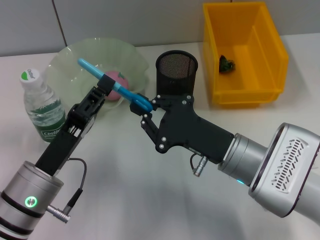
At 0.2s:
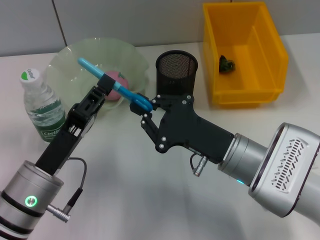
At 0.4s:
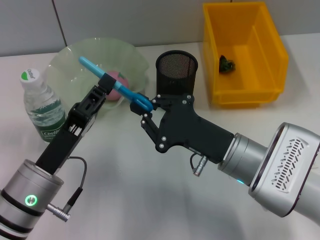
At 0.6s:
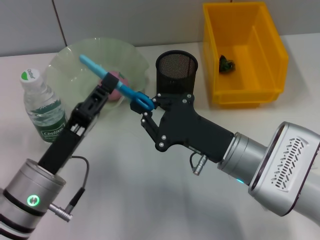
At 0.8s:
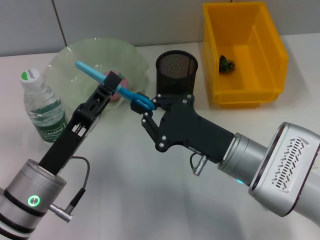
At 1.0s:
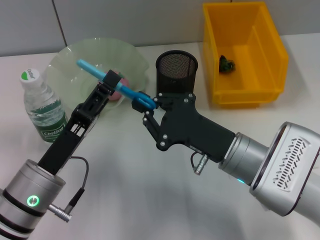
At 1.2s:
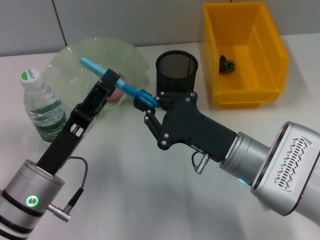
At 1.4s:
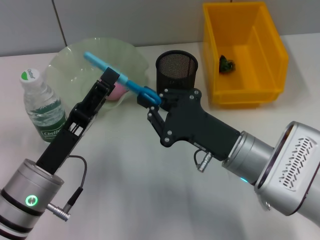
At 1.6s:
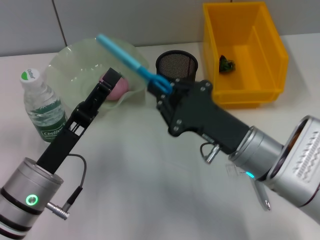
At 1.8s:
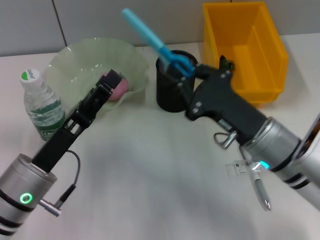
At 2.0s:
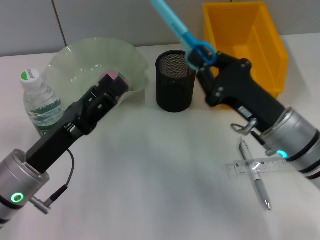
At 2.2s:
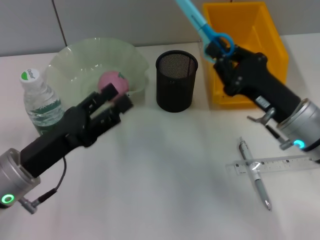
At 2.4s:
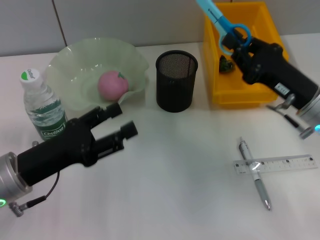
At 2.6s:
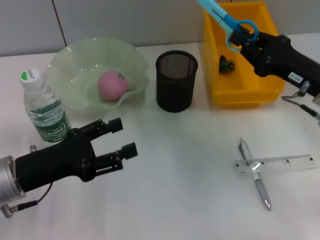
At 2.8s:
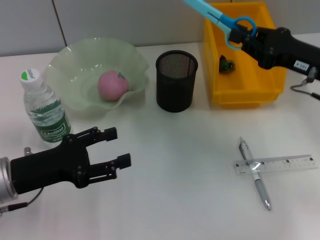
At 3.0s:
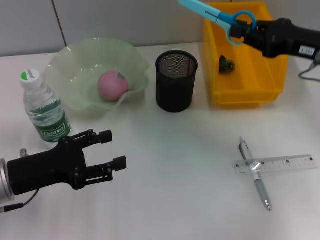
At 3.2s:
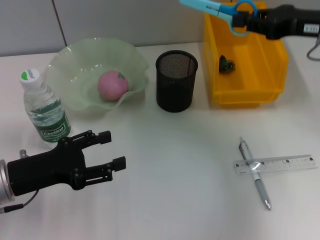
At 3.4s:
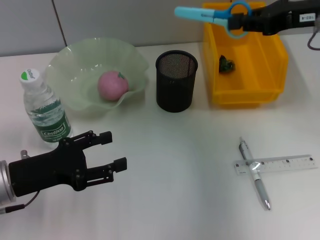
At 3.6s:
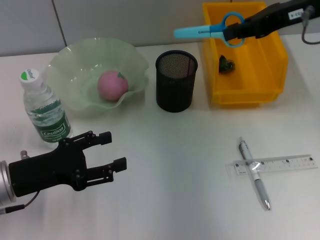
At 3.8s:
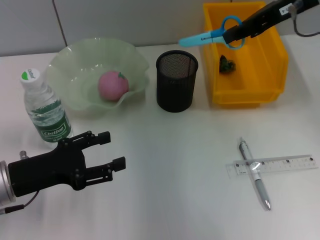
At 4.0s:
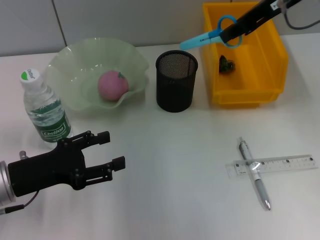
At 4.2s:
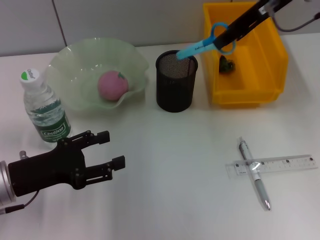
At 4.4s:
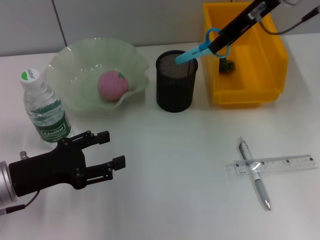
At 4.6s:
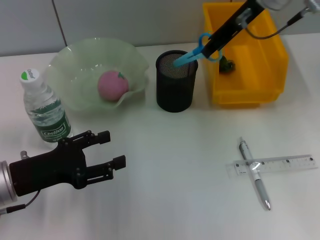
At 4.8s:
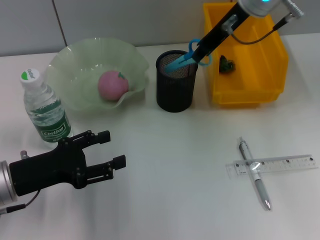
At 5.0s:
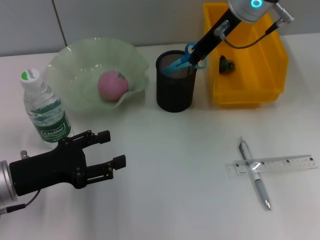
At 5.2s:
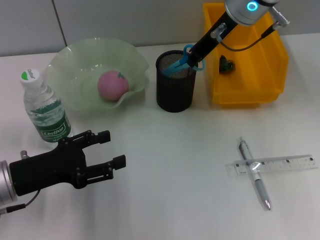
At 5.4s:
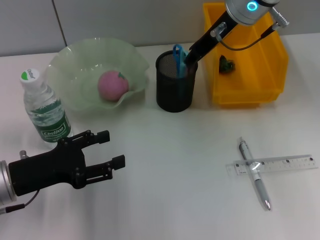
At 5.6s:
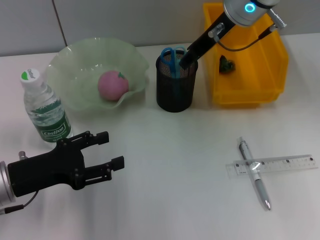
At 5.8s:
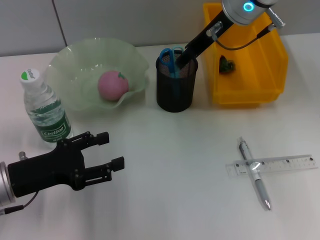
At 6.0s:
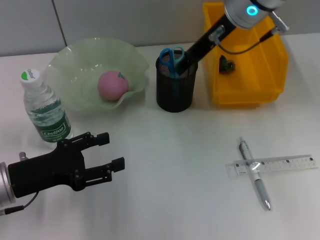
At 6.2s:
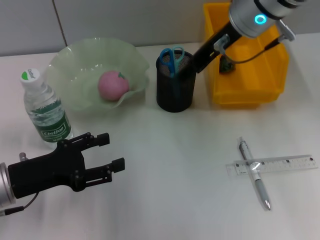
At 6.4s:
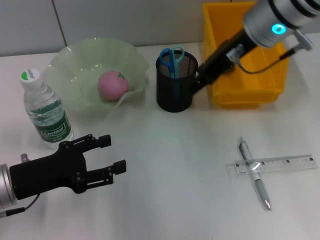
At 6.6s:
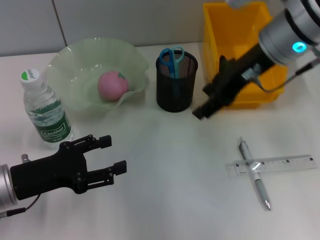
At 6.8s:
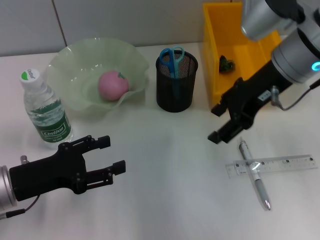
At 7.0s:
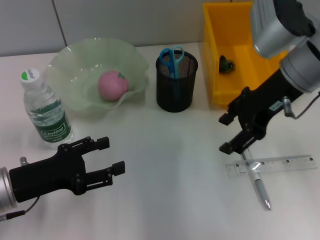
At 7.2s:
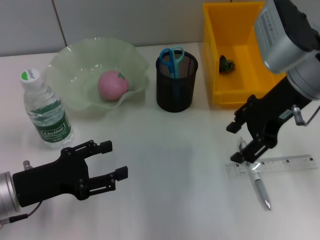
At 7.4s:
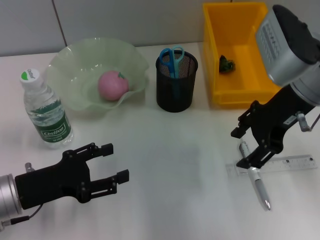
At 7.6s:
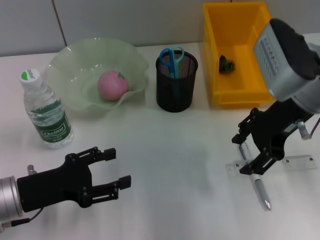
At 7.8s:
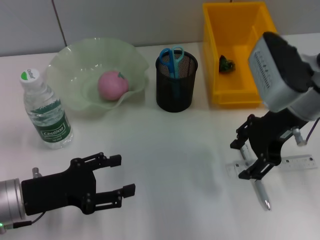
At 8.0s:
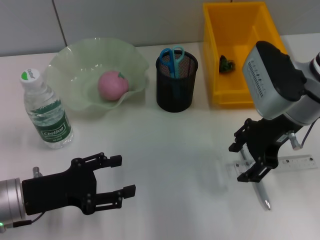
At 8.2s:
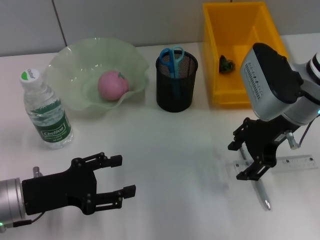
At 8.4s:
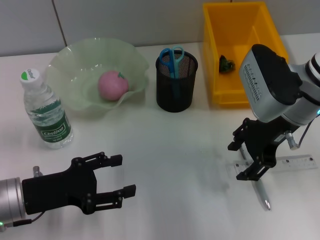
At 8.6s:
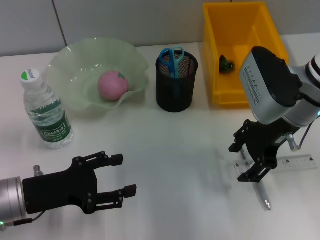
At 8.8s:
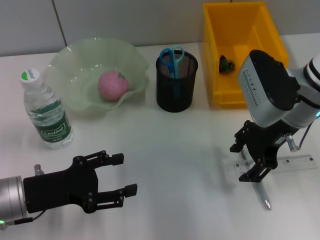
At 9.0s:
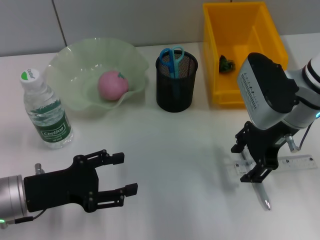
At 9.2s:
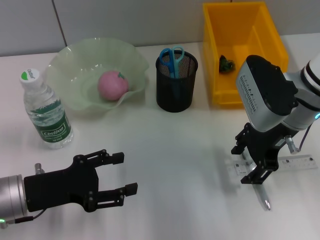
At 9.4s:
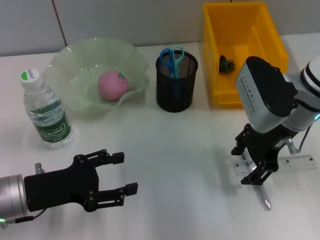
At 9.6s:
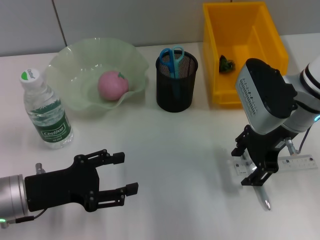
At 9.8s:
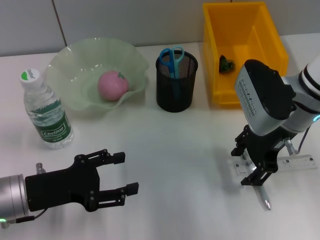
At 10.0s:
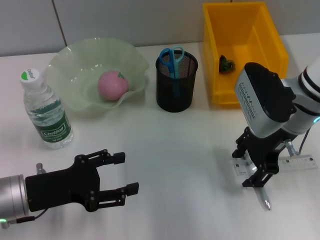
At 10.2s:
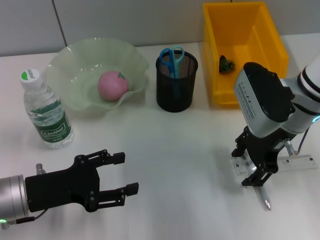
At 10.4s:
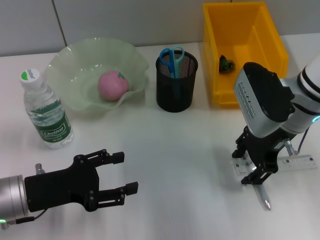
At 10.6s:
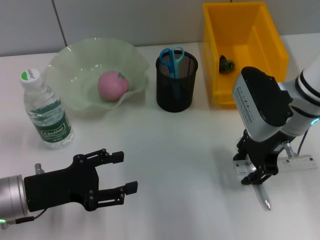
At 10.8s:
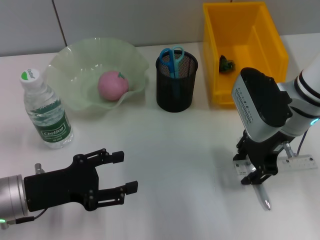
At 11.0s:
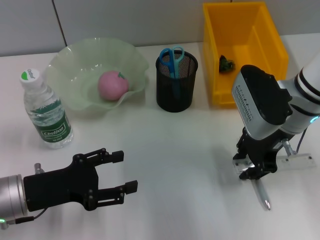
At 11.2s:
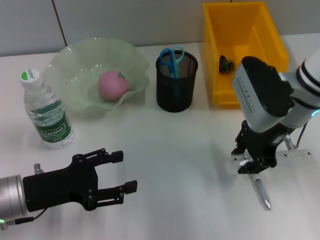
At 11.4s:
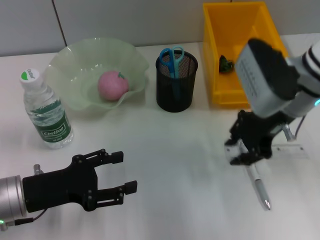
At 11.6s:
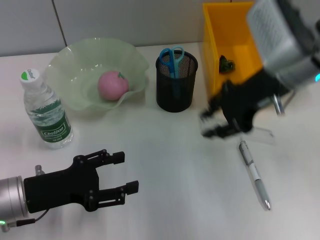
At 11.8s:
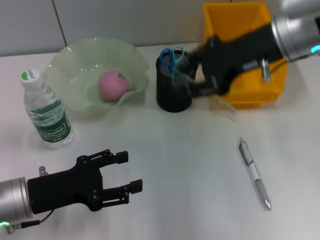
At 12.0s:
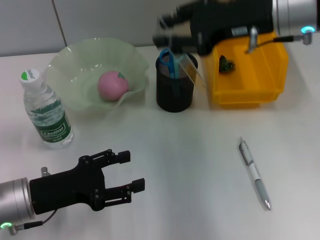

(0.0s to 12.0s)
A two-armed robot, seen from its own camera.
Step, 1.6s - 6.0s: Place the blue scissors into the pen holder with the right hand.
Step, 6.2s - 11.0s: Grab the ruler with the right hand.
0.0s - 1.6s: The left gripper opens up.
1.6s - 3.0s: The left gripper shifts some 5 cm to the left; the right gripper heads to the right, upward and forward, covering roughly 20 cm.
3.0s - 4.4s: The right gripper shifts some 15 cm to the left, upward and forward.
4.4s - 6.0s: The right gripper ends up some 5 cm from where it was, and opens its fingers.
6.0s - 7.6s: The right gripper travels backward, to the right and downward by approximately 15 cm.
7.6s - 9.0s: The grippers move only a little.
9.0s - 10.4s: Both grippers stay put.
10.4s - 12.0s: The right gripper moves upward, roughly 10 cm, and closes.

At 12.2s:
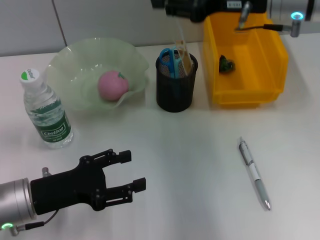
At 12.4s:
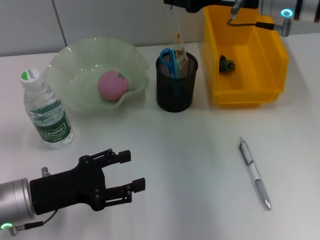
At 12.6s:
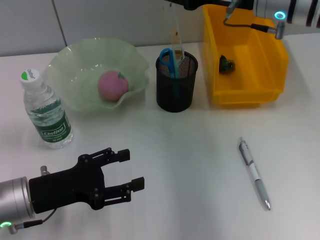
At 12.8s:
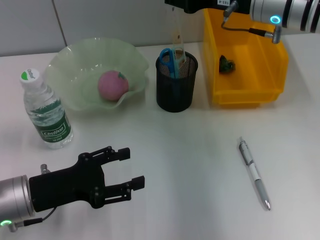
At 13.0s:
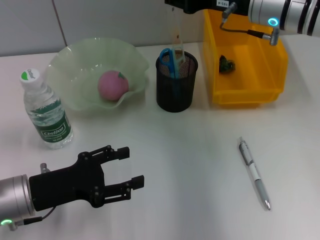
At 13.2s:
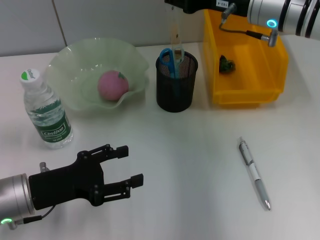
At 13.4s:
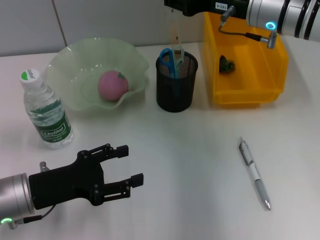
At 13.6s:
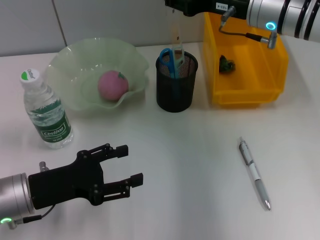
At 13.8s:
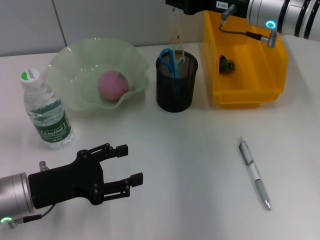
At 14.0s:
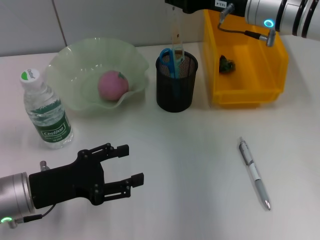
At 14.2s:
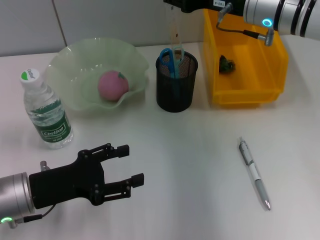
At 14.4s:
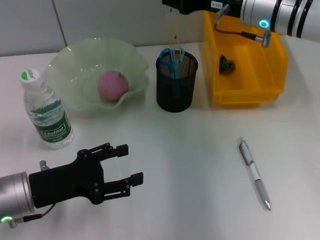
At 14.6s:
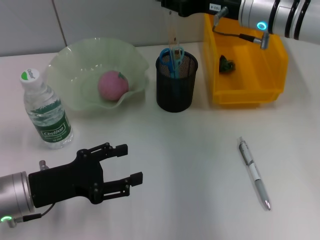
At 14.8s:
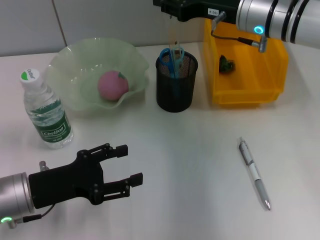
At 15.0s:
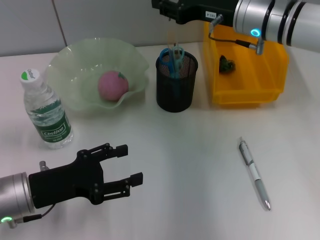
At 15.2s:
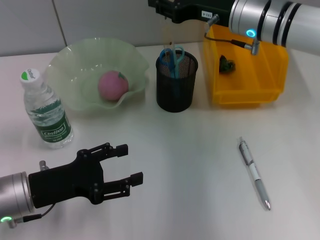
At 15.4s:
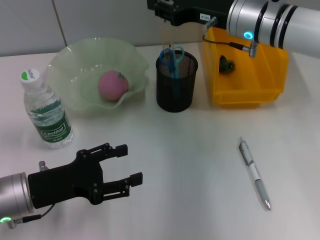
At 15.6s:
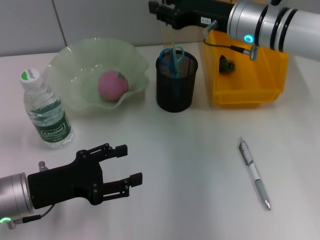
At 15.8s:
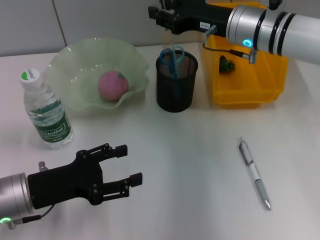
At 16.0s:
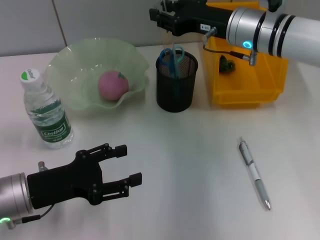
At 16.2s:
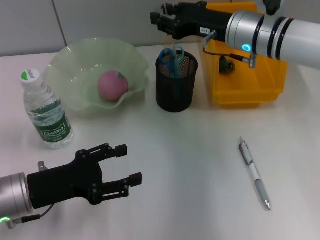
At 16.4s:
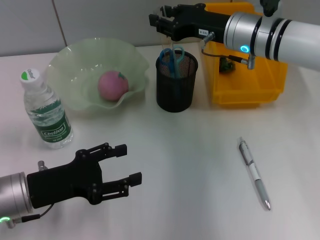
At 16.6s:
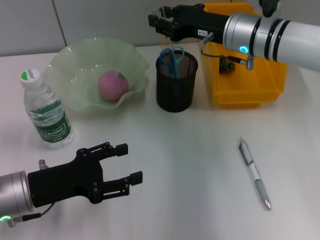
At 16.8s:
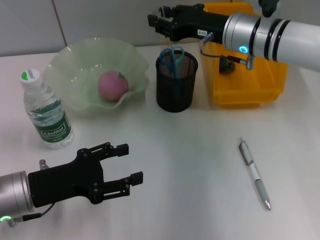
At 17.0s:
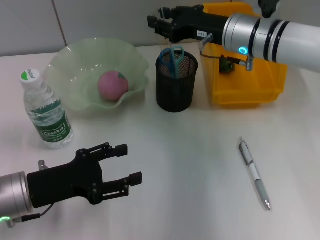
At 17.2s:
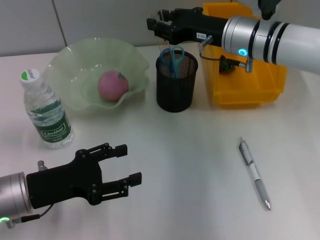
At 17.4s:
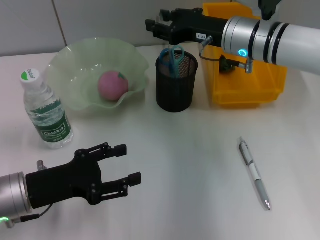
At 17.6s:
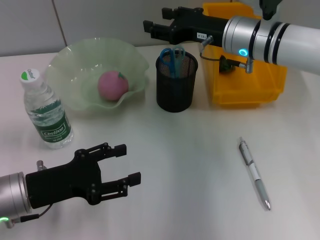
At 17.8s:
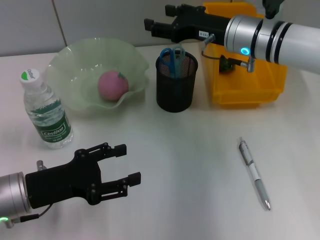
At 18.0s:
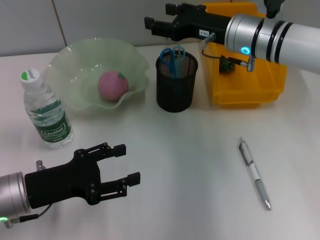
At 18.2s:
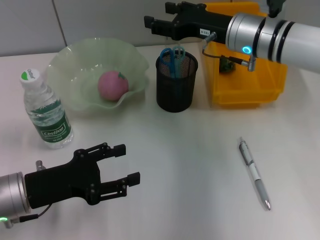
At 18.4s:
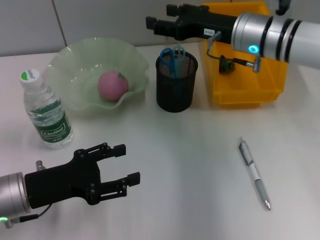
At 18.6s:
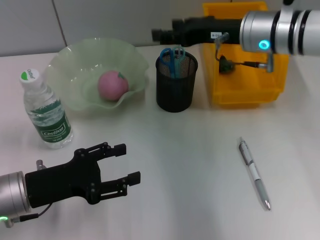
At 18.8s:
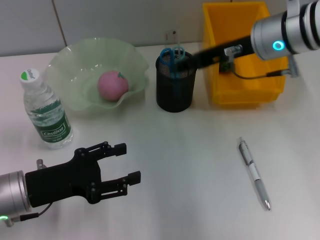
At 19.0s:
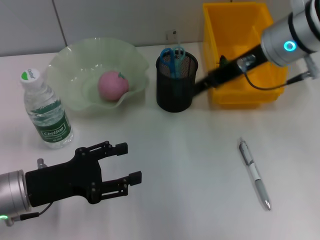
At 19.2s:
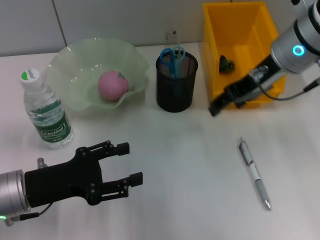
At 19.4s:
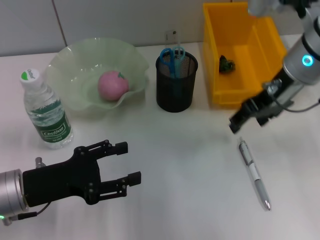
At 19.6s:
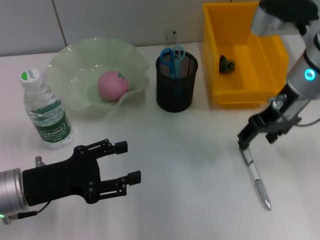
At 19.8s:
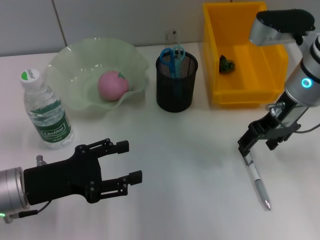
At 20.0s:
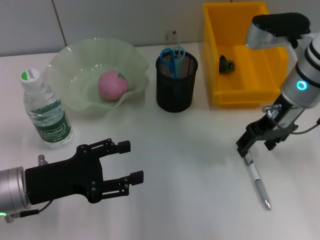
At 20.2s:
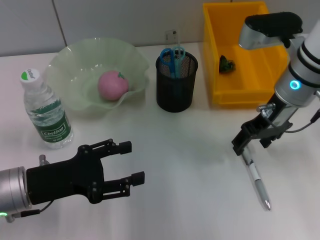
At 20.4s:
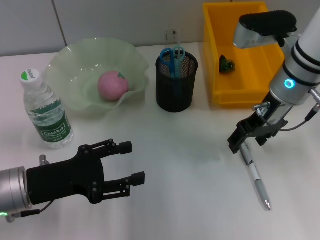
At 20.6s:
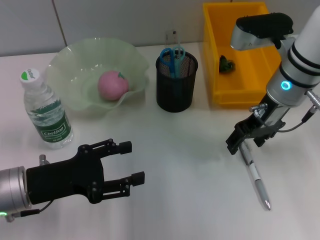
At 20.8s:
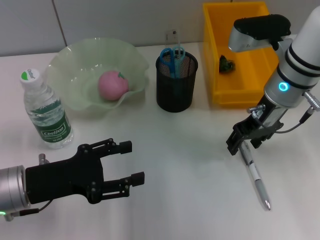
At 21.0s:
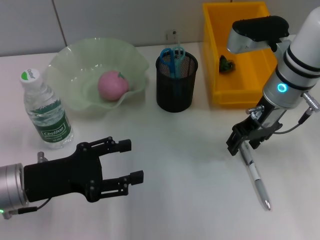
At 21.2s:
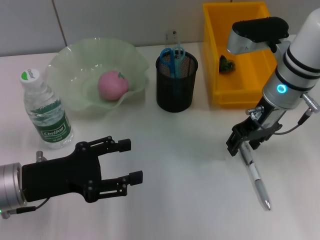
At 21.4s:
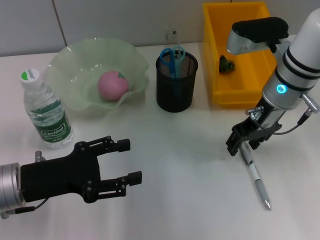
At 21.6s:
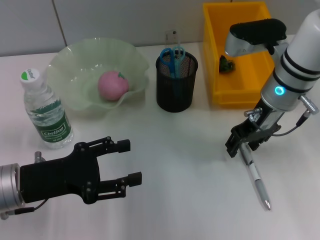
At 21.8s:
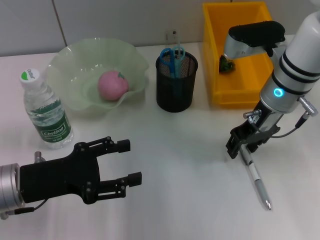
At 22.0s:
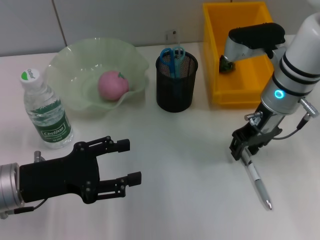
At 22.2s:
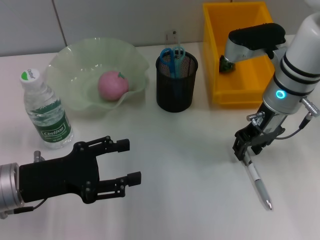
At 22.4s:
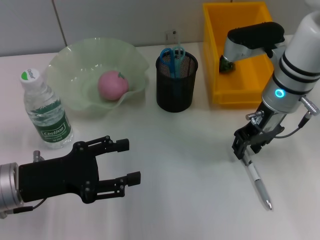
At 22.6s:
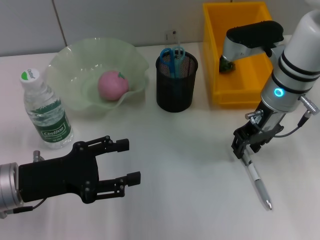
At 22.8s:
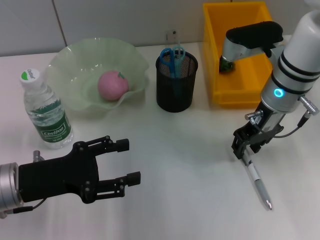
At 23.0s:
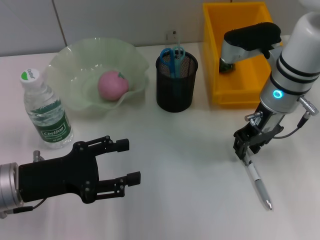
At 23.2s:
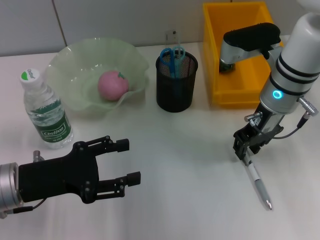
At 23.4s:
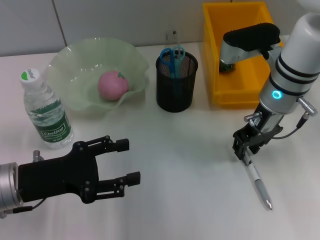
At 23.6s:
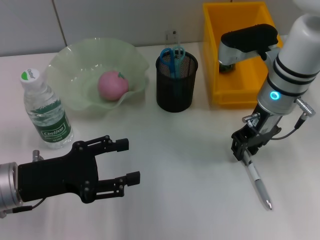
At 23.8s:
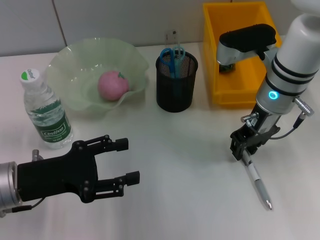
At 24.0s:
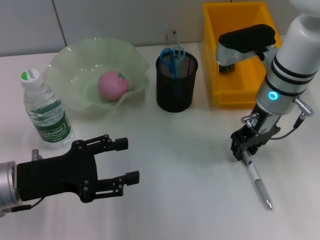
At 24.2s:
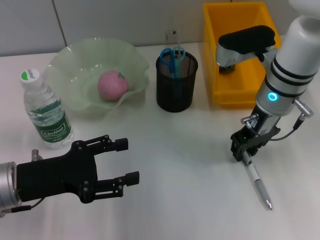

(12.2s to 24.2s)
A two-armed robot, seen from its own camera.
Step, 12.2s - 17.8s: Place the ruler into the pen holder with the right hand.
12.2s - 13.8s: The right gripper ends up approximately 5 cm from where it was.
13.8s - 16.6s: The grippers make only small movements.
16.6s - 18.2s: The right gripper opens up.
18.2s - 19.8s: The right gripper shifts some 5 cm backward.
19.8s - 21.2s: There are only small adjustments of the grippers.
21.2s - 22.6s: Both grippers stay about where they are.
22.6s - 24.2s: Neither gripper changes place.
